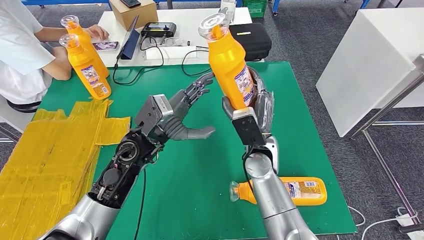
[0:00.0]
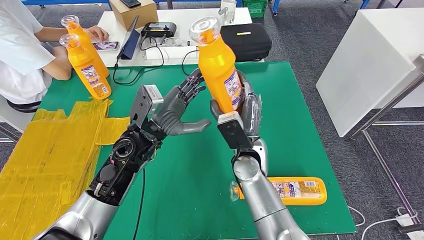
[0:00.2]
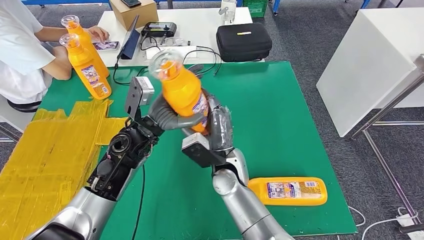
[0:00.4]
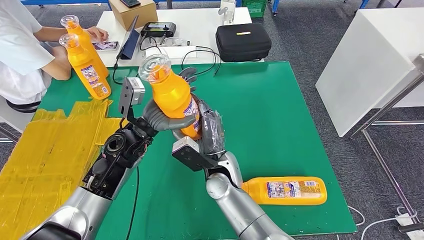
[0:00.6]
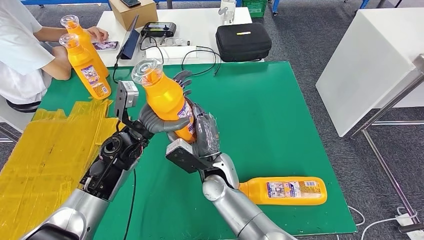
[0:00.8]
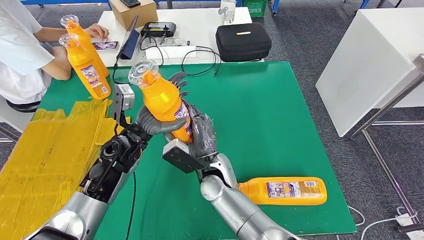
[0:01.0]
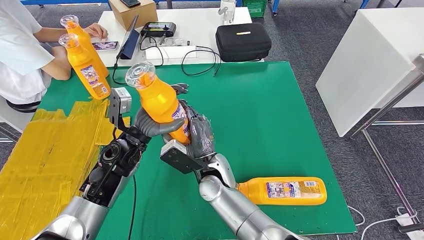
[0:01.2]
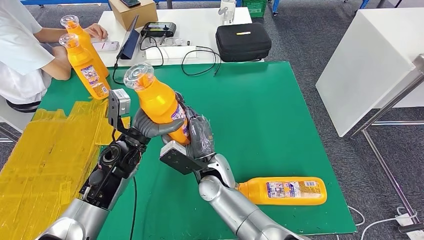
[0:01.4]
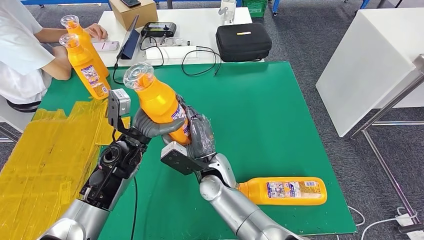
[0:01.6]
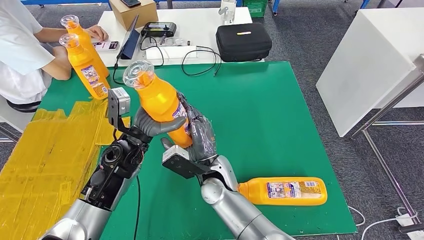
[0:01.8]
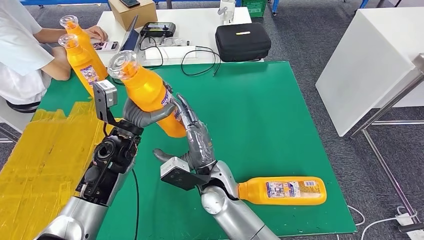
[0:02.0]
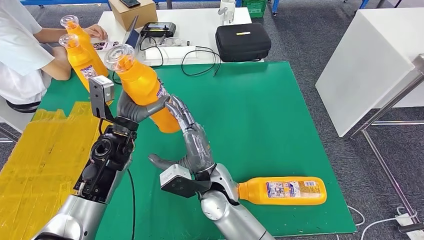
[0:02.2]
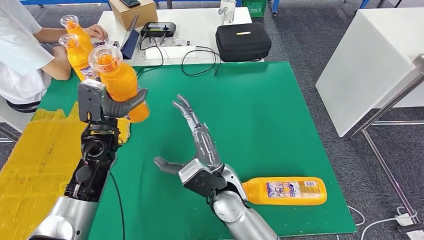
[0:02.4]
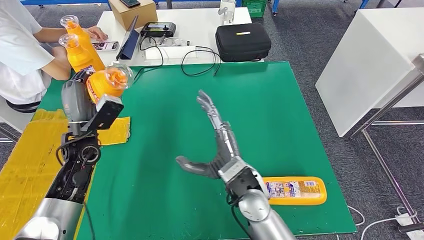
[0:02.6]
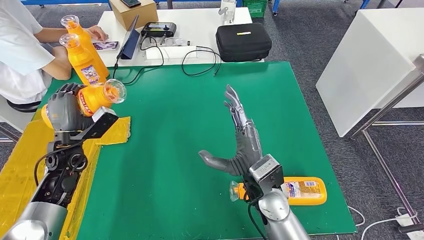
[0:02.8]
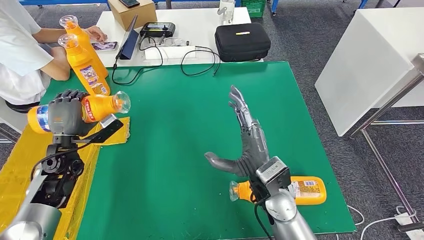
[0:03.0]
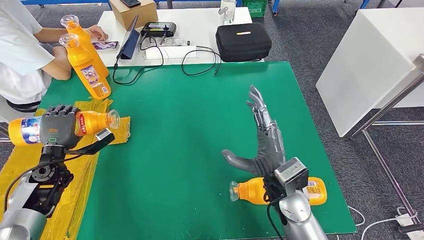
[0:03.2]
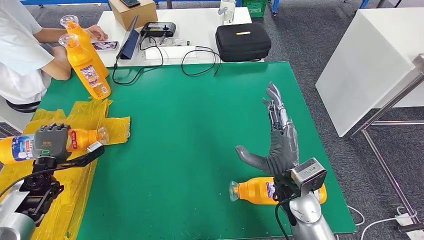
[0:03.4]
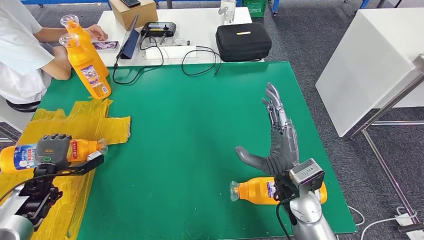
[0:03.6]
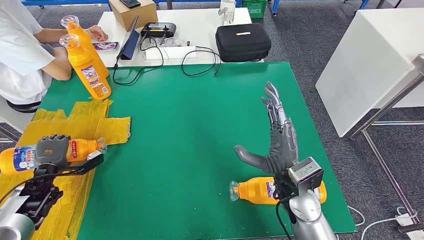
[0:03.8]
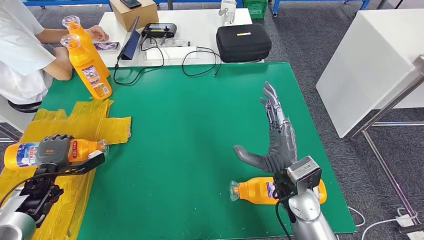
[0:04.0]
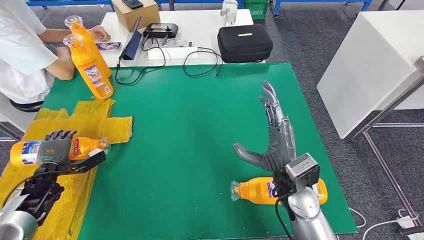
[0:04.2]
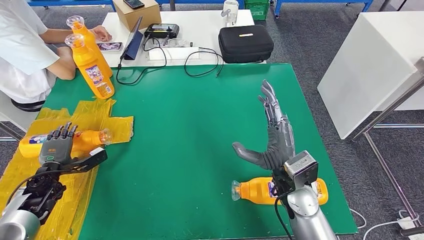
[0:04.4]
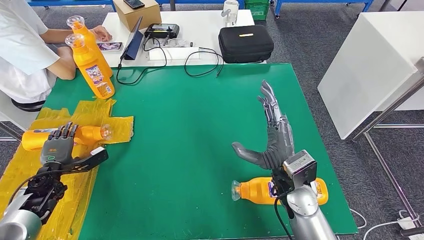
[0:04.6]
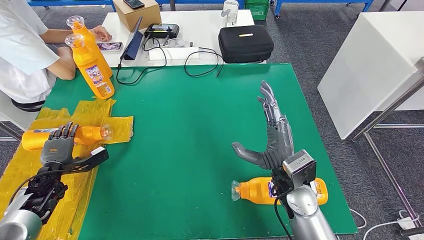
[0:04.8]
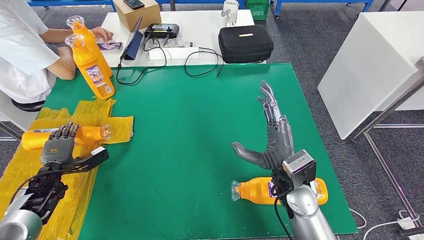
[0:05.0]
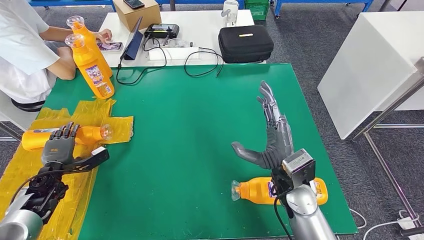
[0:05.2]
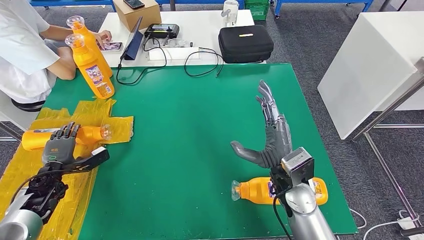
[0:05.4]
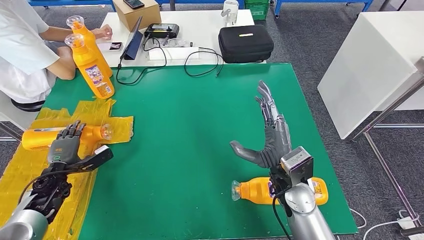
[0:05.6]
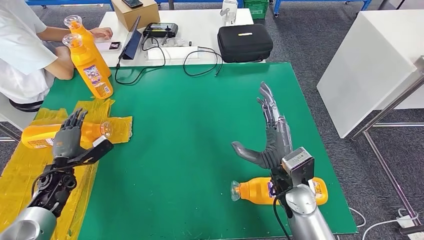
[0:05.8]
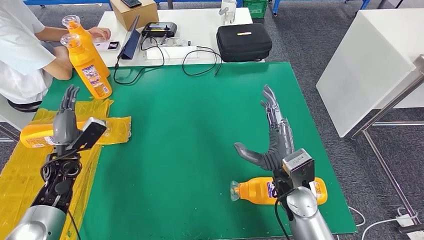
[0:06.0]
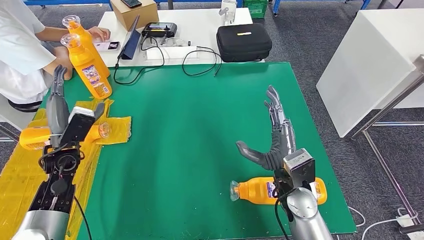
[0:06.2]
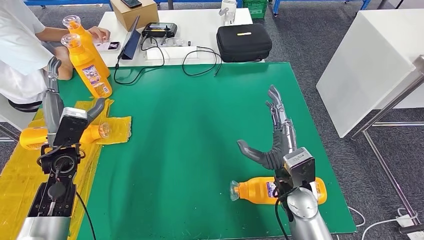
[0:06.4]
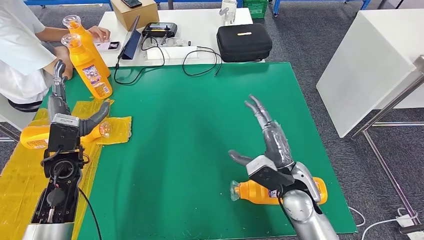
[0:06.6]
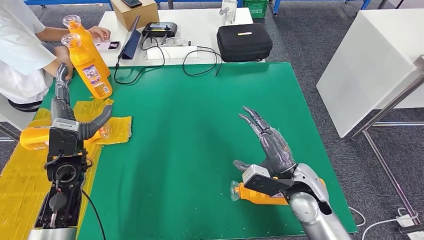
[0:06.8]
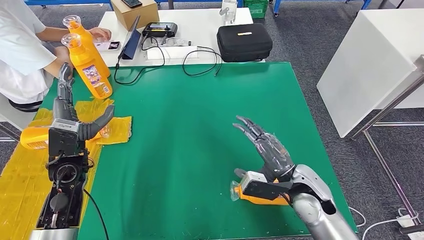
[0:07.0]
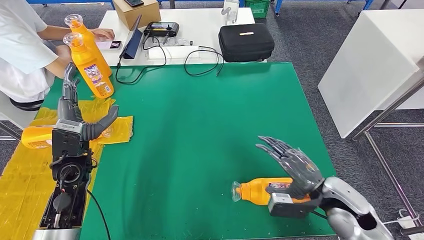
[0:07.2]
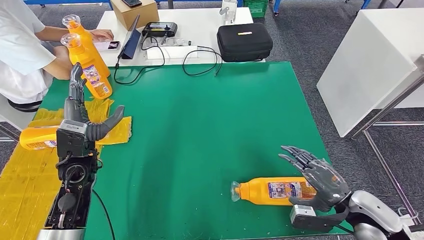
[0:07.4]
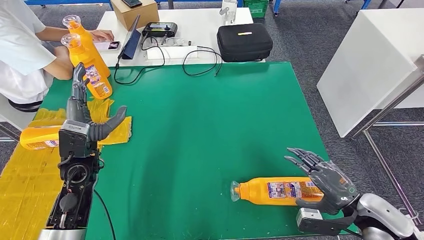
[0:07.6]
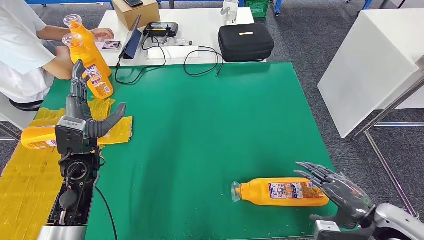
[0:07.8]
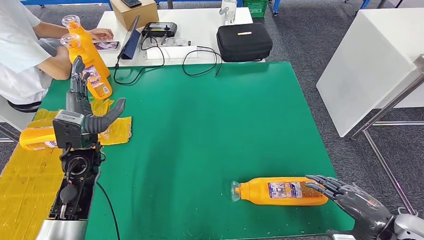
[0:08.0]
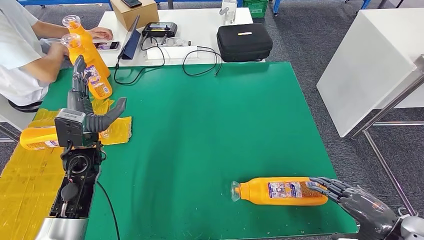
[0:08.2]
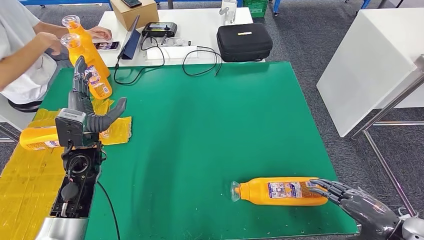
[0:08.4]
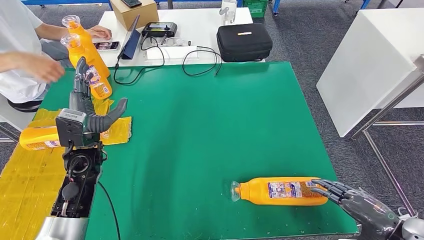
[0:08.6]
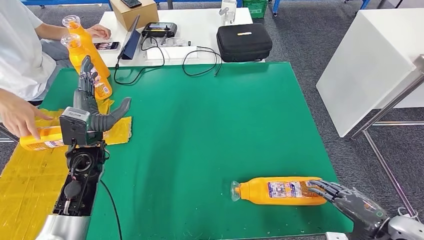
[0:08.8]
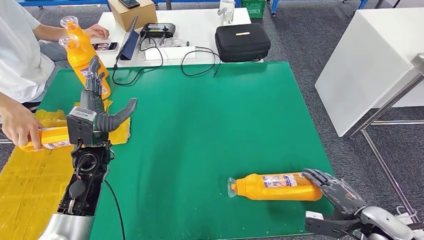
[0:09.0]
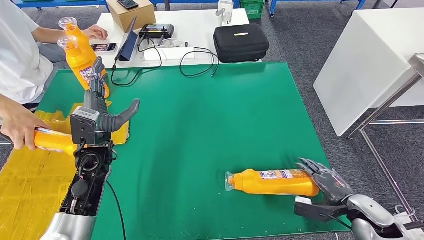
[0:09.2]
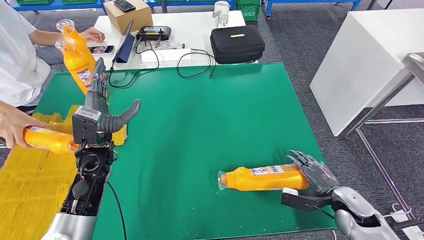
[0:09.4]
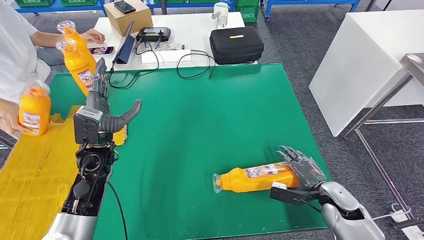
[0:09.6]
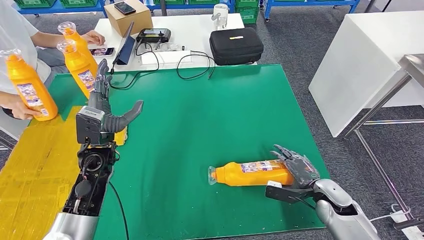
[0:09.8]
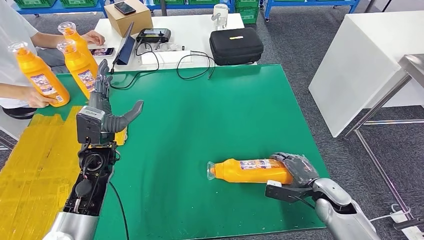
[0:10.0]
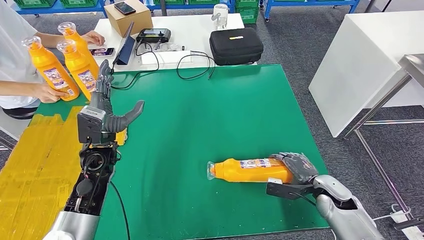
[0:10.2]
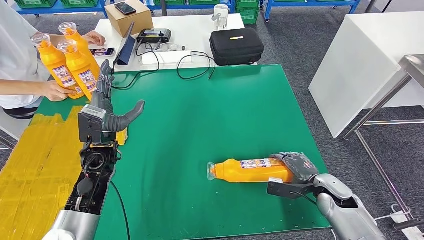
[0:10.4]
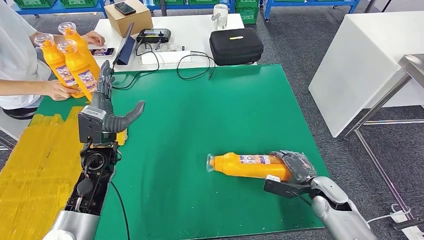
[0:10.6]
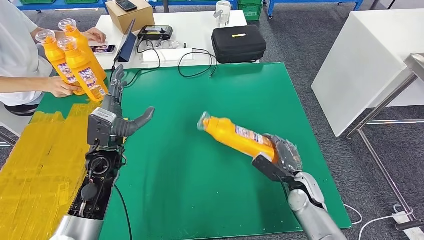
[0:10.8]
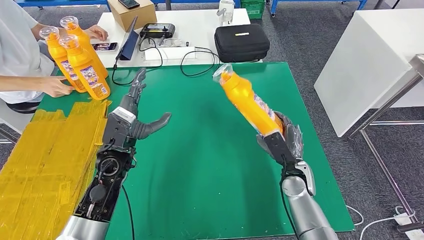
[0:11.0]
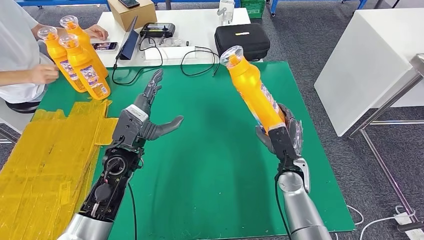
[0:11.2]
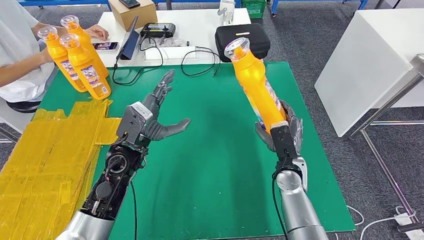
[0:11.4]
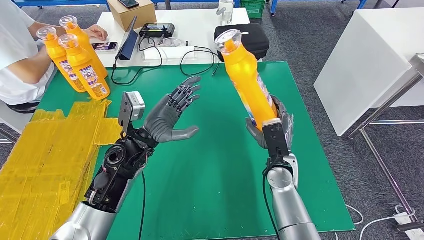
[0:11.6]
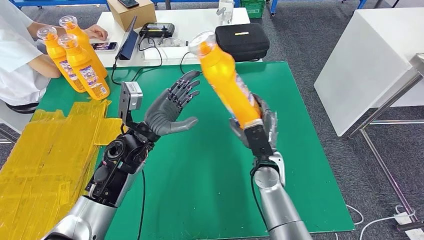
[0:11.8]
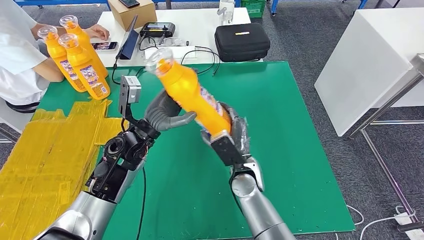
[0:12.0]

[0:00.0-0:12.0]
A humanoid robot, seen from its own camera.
Step, 0:02.0 to 0:06.2: Flip the fast-moving consumer goods bottle to the front side.
0:00.0 to 0:01.6: The right hand moves to the left, some 10 cm. Meanwhile the left hand ends up some 5 cm from where it was.
0:04.4 to 0:06.0: The left hand travels to the right by roughly 5 cm.
0:06.0 to 0:07.6: The left hand heads to the right and upward, covering about 10 cm, while the right hand goes approximately 20 cm to the right.

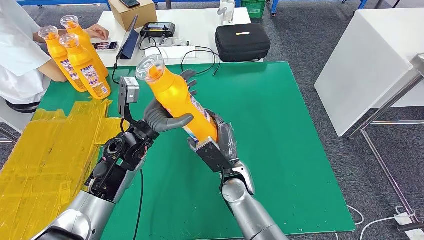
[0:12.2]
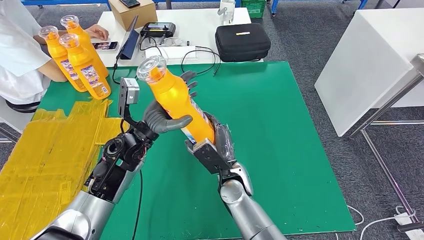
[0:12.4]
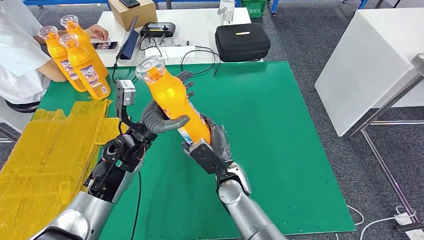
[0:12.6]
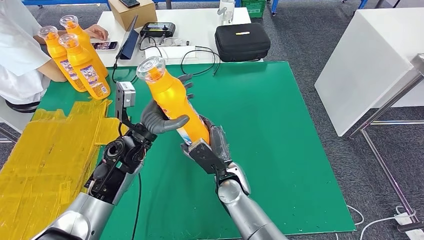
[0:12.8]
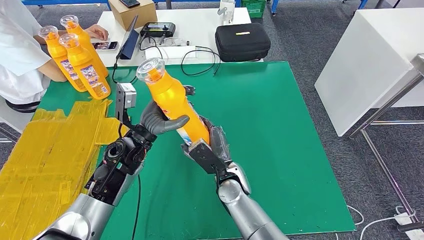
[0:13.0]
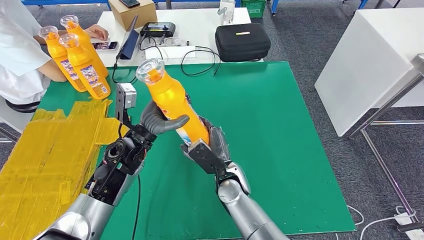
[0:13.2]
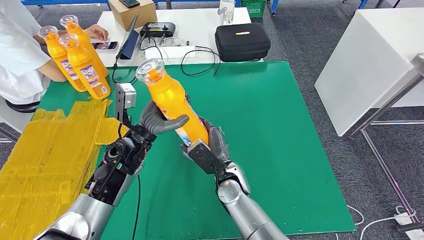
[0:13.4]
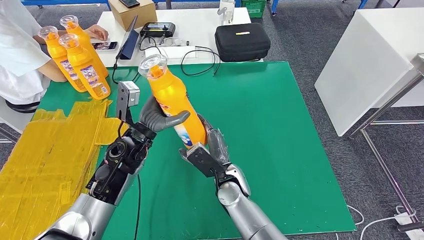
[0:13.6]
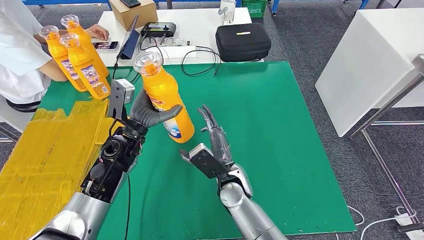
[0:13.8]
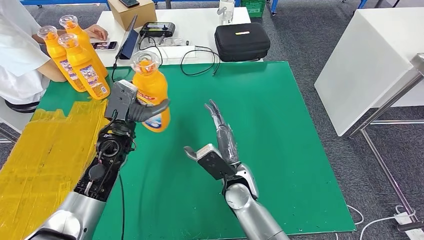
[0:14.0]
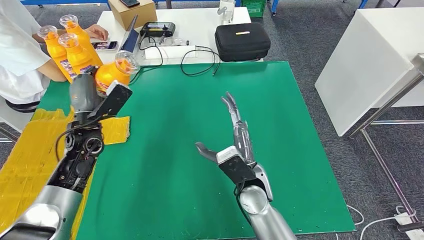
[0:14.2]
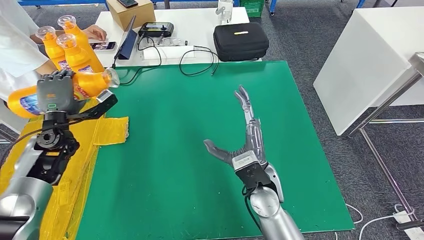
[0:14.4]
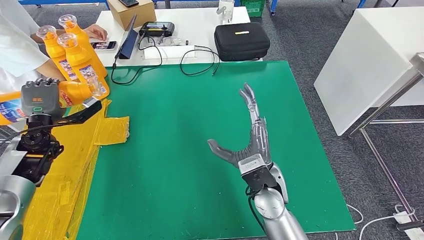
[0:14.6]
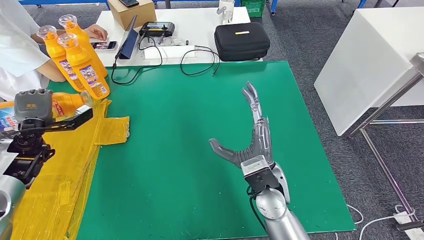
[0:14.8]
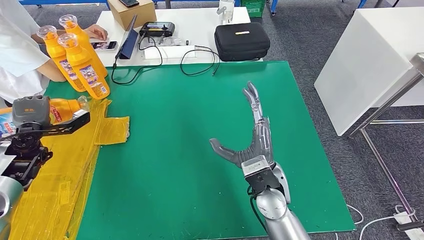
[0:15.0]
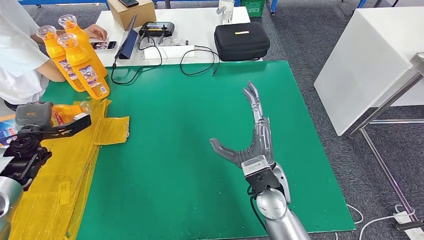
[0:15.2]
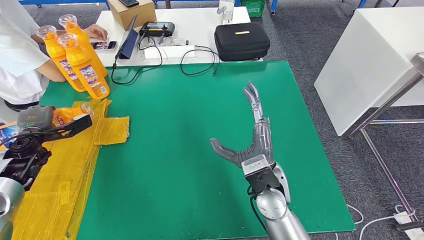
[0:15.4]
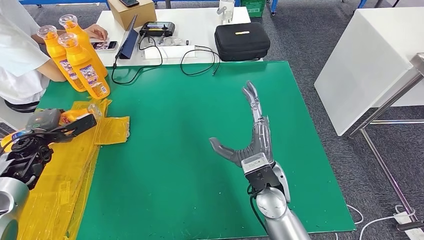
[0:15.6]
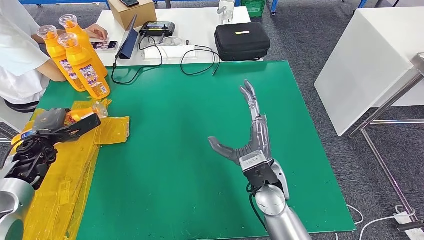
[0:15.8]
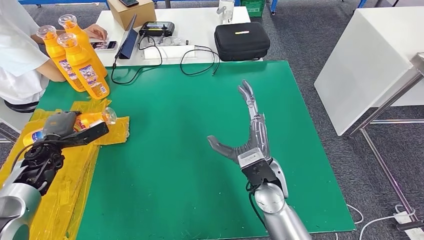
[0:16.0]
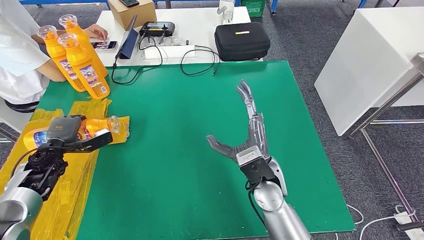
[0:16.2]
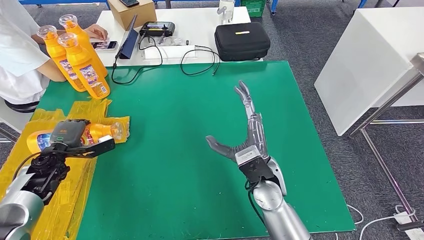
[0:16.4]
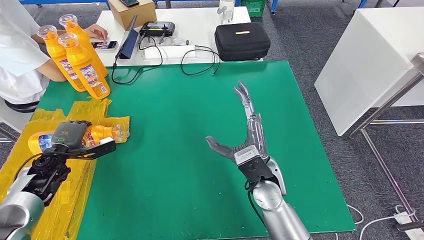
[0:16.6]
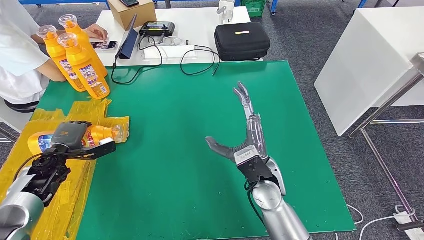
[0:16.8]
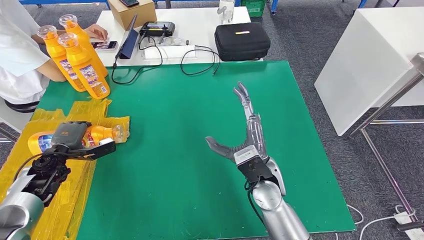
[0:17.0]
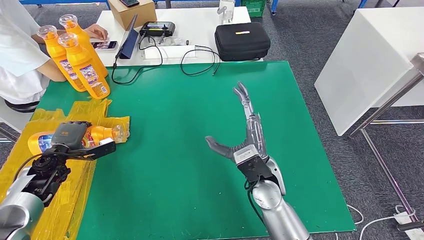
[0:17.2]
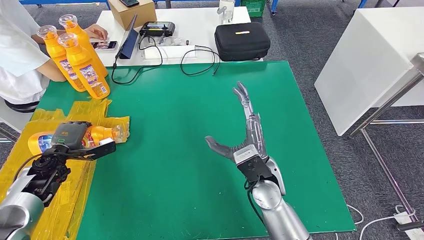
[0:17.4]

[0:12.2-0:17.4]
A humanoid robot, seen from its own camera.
0:12.2 to 0:14.0: The left hand shifts some 5 cm to the left.
0:14.0 to 0:15.6: The right hand shifts approximately 10 cm to the right and upward, while the left hand travels to the left by approximately 25 cm.
0:15.6 to 0:17.4: The left hand ends up some 5 cm from where it was.
